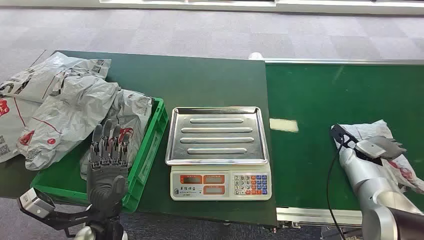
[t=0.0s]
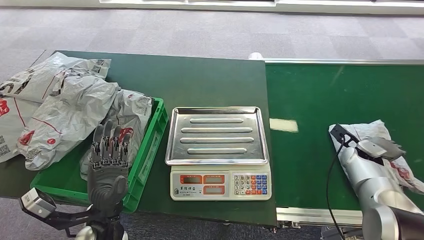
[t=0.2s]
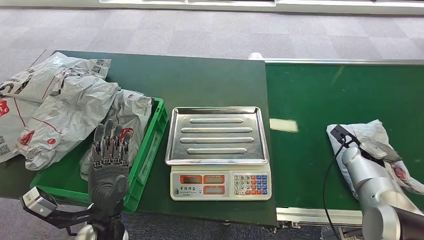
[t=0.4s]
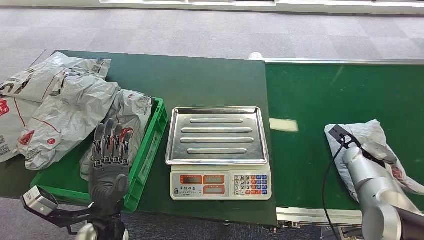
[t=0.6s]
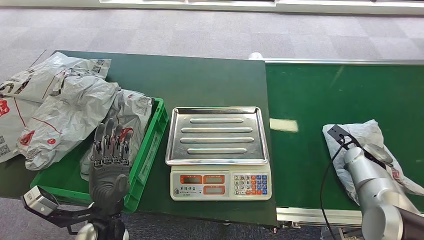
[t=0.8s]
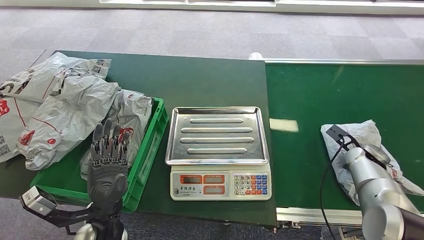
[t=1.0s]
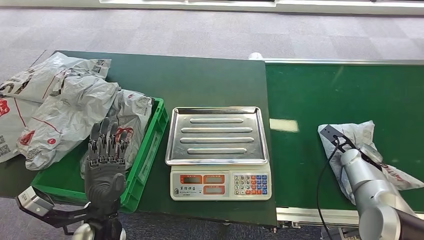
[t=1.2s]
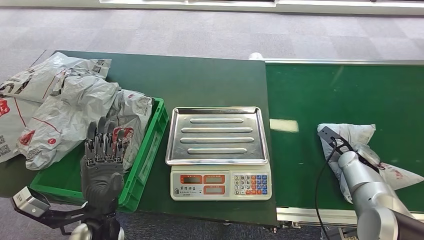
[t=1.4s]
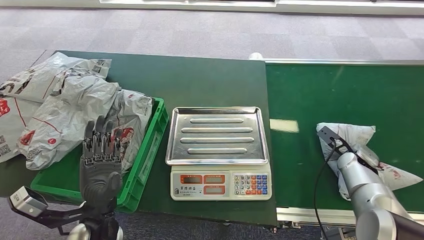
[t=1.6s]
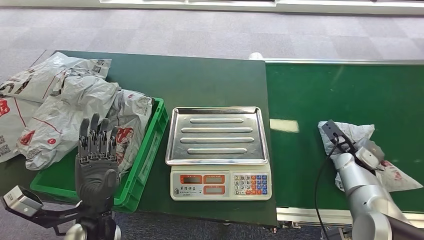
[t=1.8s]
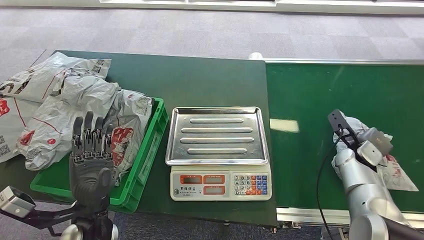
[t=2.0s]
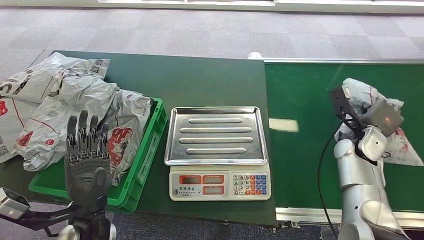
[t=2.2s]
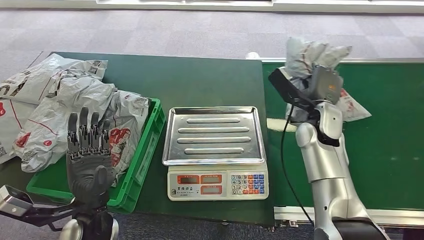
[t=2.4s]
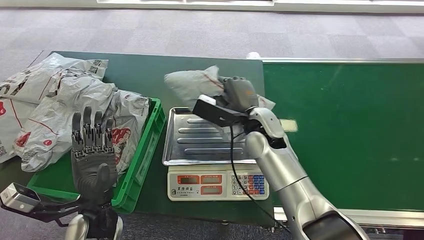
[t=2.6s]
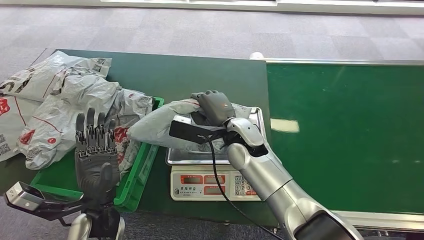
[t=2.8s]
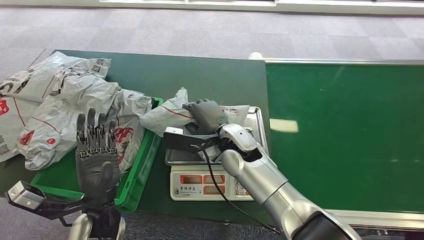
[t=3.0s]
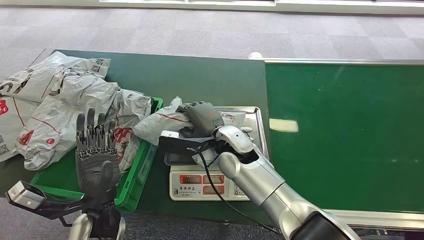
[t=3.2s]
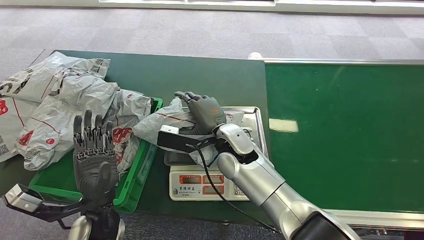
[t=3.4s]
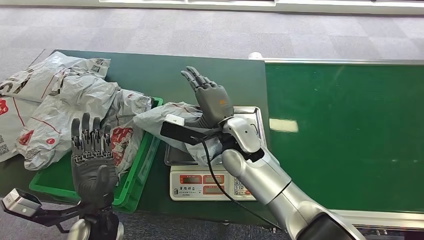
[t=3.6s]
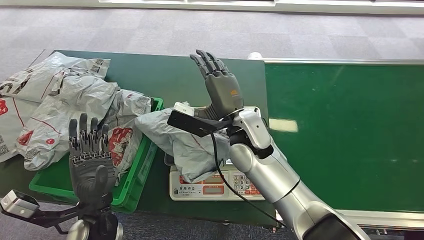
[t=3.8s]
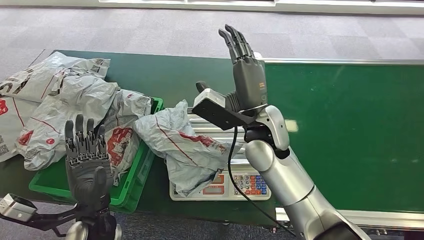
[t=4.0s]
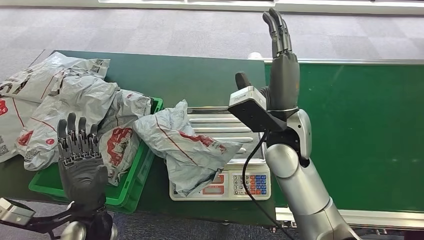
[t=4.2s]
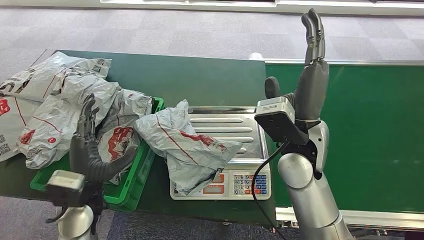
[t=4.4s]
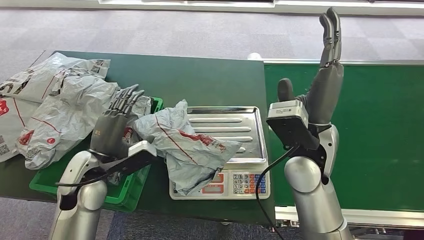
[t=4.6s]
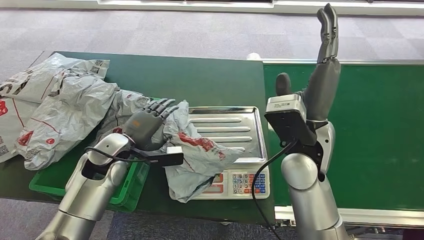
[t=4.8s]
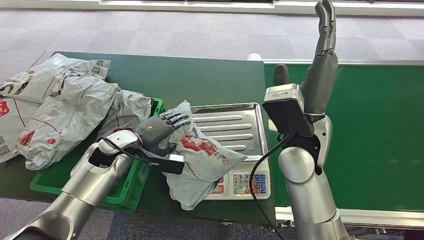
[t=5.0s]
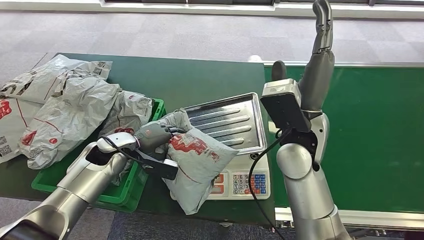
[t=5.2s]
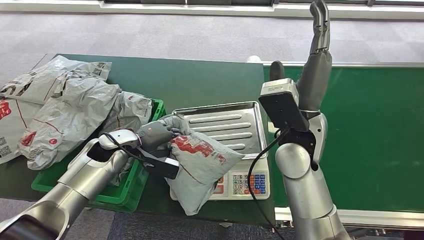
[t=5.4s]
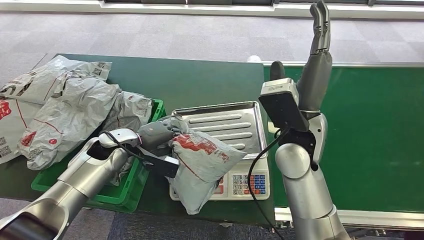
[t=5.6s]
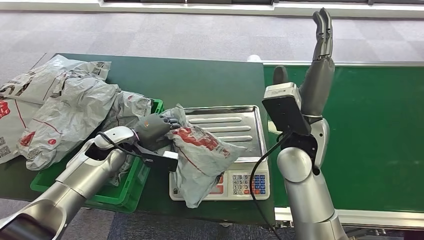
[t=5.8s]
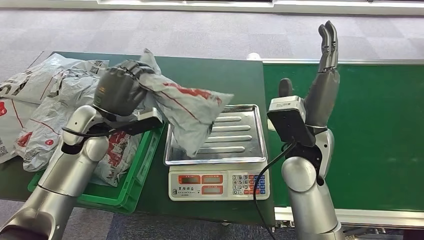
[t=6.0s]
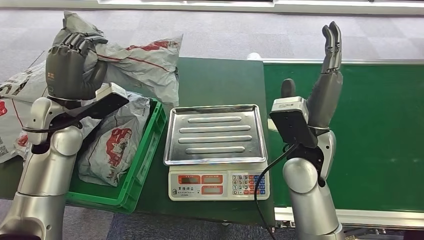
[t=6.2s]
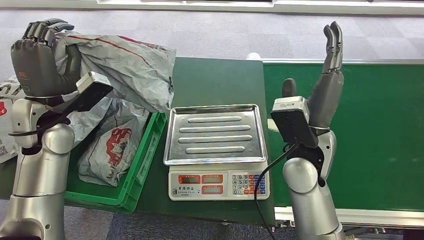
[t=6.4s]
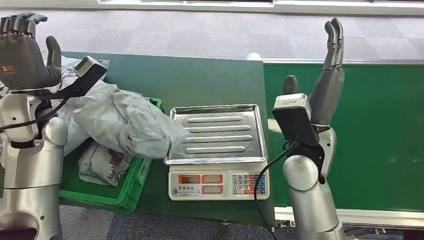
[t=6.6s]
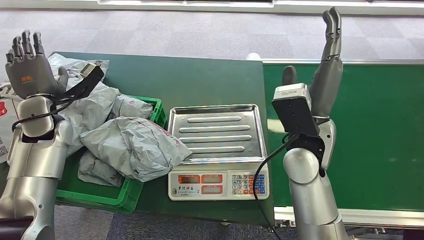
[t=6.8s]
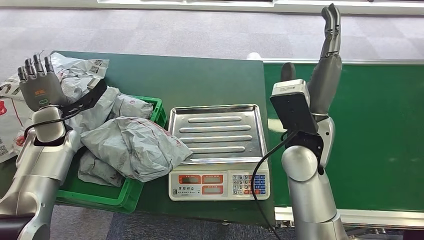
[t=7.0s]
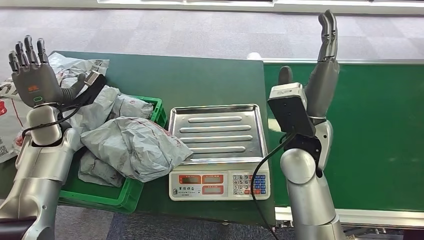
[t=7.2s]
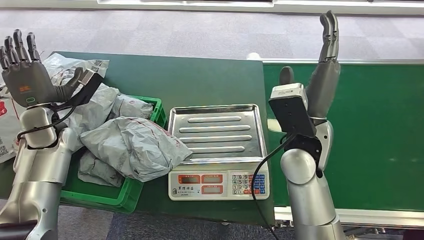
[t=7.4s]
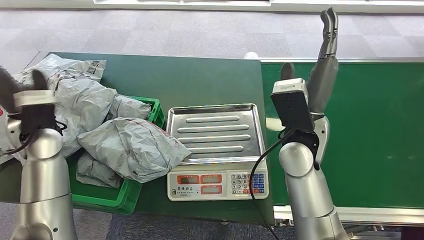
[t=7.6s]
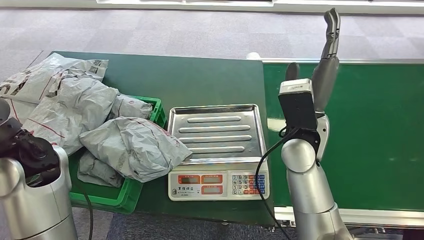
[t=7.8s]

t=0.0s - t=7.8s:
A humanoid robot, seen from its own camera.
Step, t=0.0s - t=2.2s: Pick up the package from the conveyor belt.
Step, t=2.6s - t=3.6s: Place the package onto the inbound machine.
Step, t=4.2s - t=6.0s: Pick up the package from the inbound machine.
Step, t=6.2s - t=7.8s: Place the package into the parcel locker.
